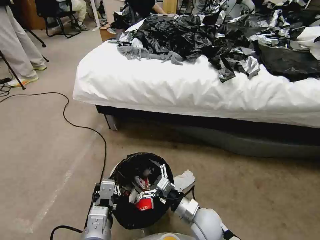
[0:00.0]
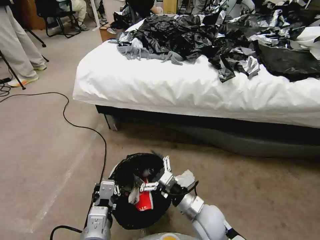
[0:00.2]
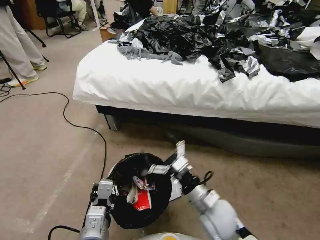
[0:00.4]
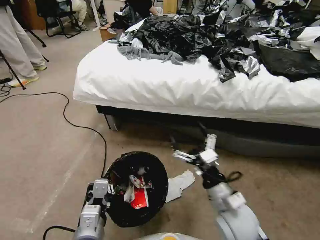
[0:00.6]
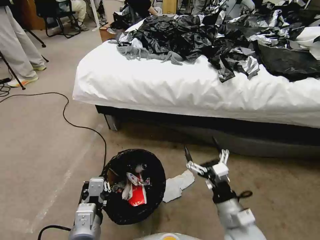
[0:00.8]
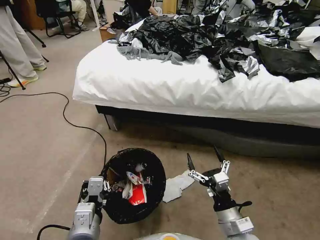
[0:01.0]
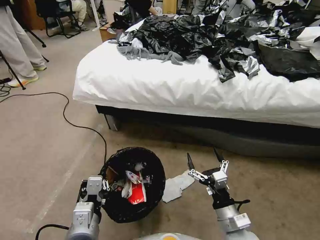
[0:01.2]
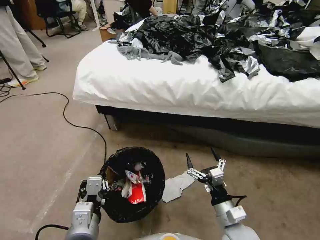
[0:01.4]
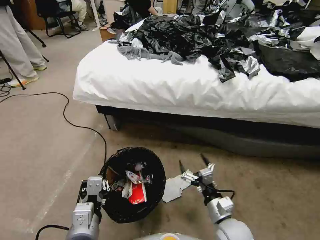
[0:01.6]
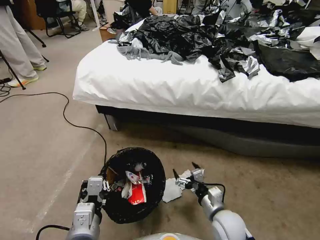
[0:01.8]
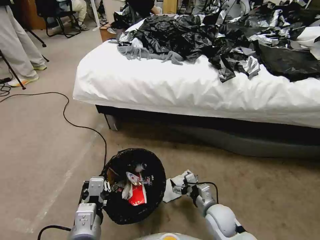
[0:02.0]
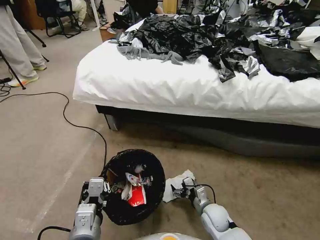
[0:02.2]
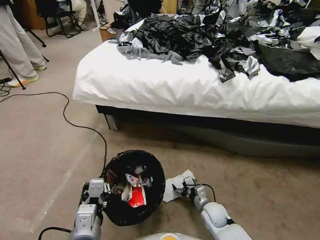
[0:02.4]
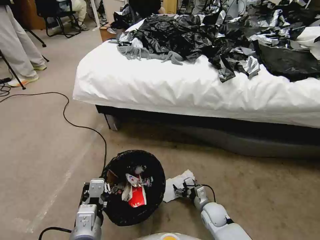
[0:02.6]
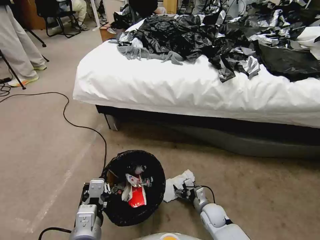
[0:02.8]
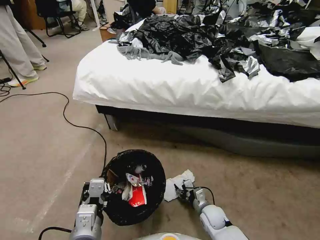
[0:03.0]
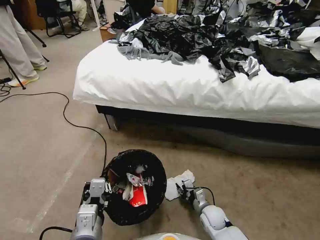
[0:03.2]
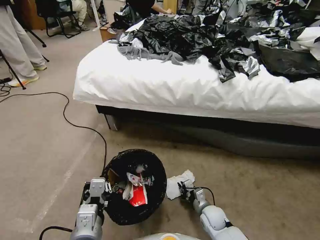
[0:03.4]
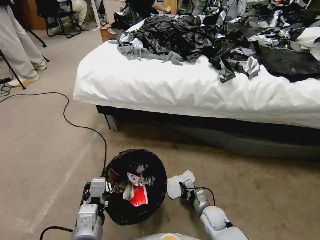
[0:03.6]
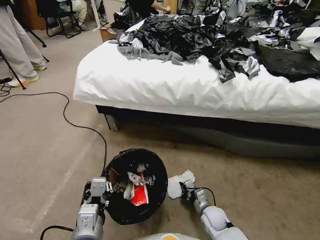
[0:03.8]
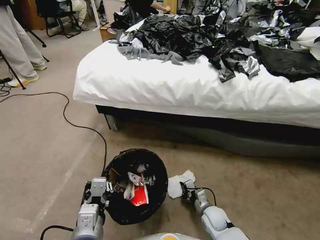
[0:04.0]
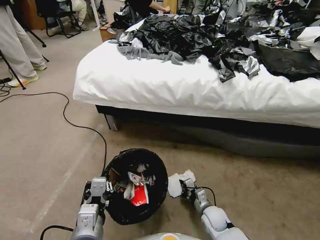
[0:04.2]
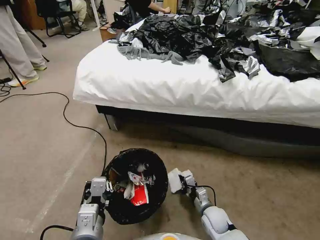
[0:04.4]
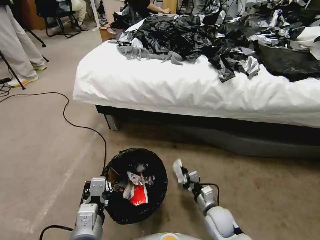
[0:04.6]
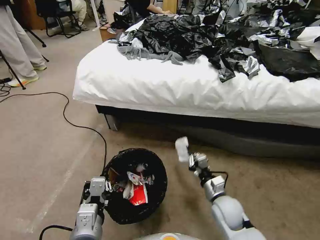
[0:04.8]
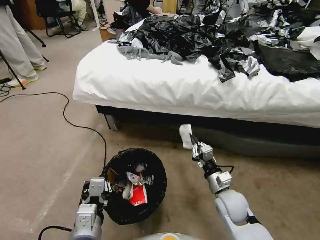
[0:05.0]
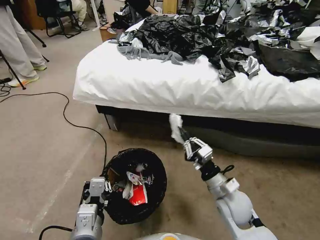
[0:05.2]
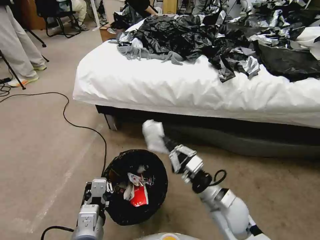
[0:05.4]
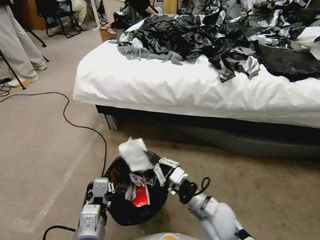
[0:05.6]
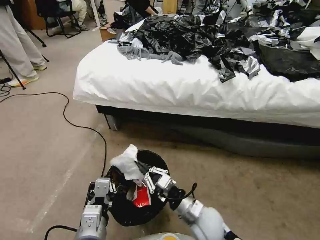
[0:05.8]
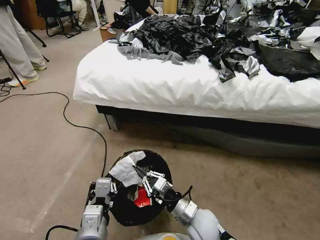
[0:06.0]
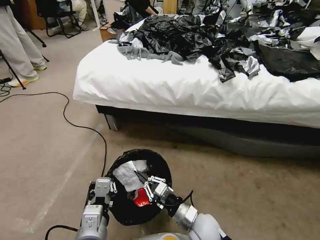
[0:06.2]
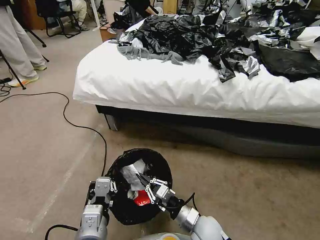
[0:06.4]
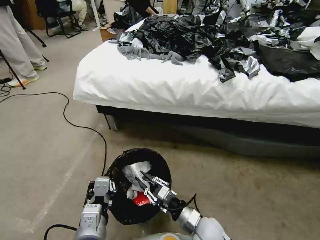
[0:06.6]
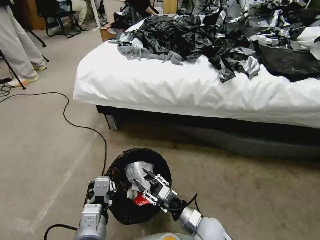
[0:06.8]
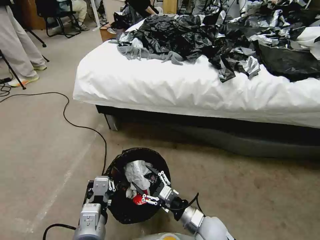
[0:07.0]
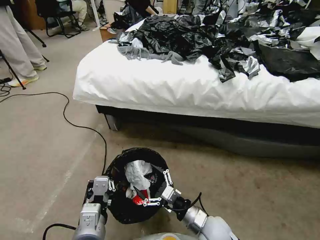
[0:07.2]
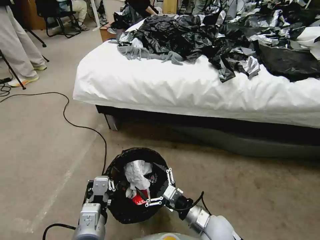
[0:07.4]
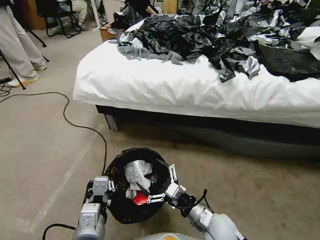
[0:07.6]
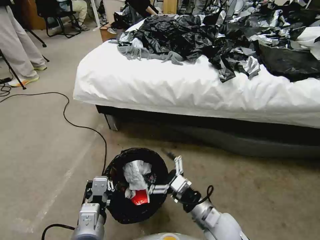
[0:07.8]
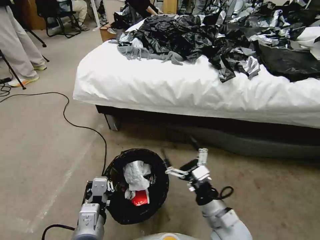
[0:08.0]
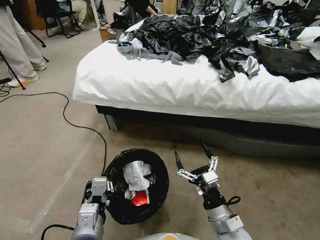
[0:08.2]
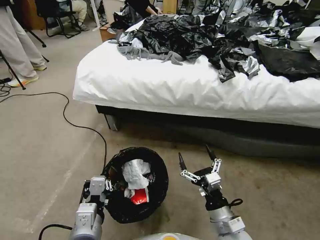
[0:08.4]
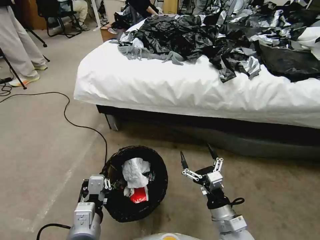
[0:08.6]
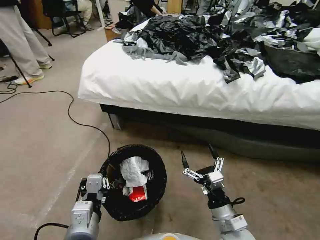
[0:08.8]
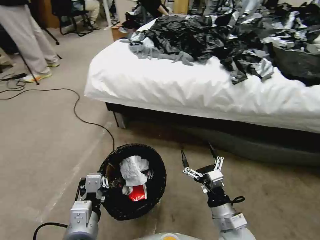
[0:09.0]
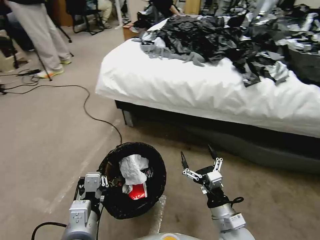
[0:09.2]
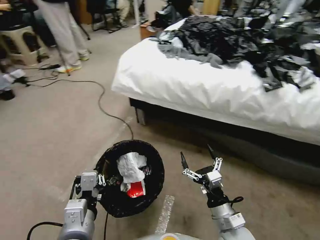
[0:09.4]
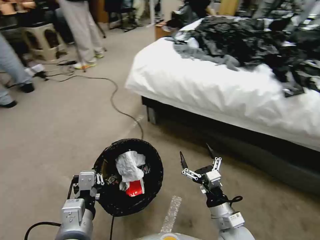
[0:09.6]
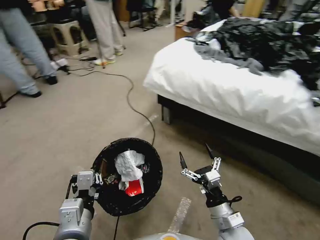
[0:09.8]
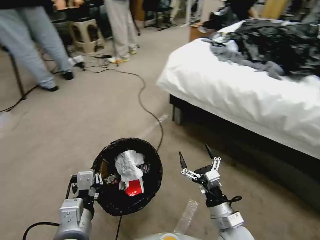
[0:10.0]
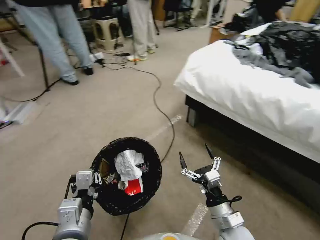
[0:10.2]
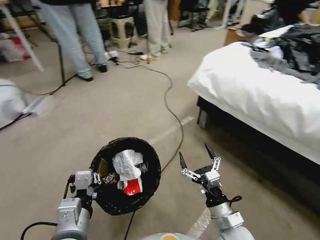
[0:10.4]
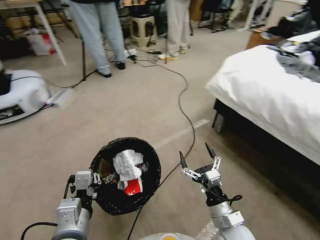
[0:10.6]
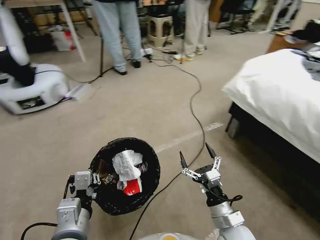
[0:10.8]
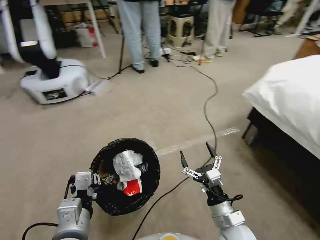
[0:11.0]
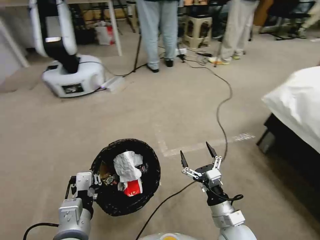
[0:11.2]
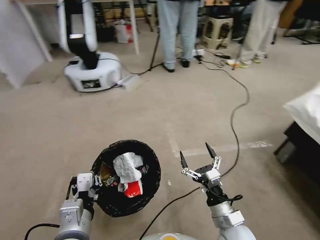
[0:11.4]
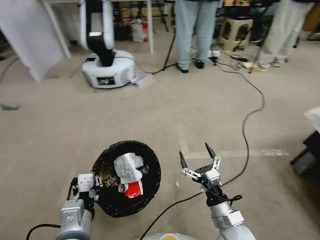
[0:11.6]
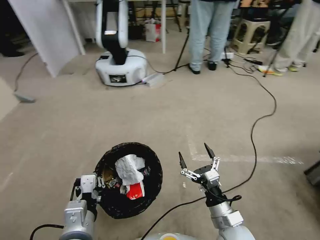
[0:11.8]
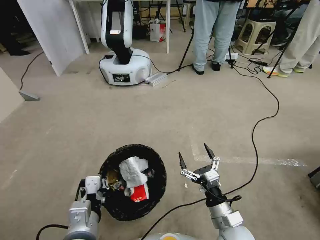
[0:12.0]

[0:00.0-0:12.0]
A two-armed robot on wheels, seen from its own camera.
Task of the whole recording: Pick up the trash bin, then pick up the garbage from the floor and place it into the trash bin.
0:00.0 to 0:01.6: The right gripper shifts some 5 cm to the right, and goes upward and returns, about 10 cm each way.
0:01.6 to 0:03.0: The right gripper goes some 15 cm downward and forward, and closes up.
0:03.0 to 0:04.4: The right gripper closes.
0:04.4 to 0:06.0: The right gripper is displaced upward and to the left by some 15 cm.
0:06.0 to 0:07.6: The right gripper opens its fingers.
0:07.6 to 0:09.0: The right gripper moves about 5 cm.

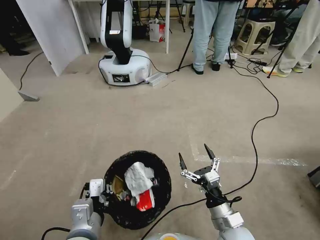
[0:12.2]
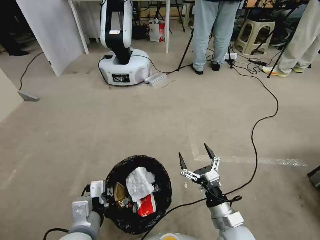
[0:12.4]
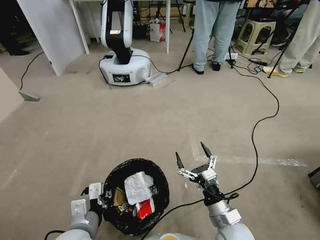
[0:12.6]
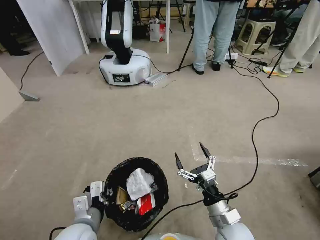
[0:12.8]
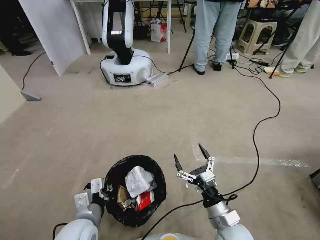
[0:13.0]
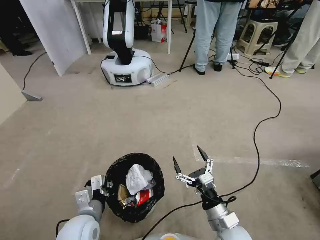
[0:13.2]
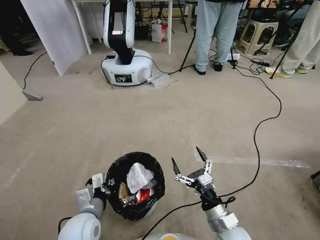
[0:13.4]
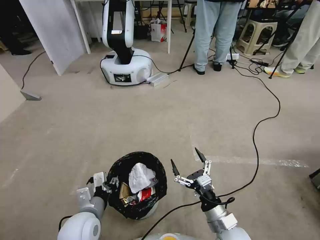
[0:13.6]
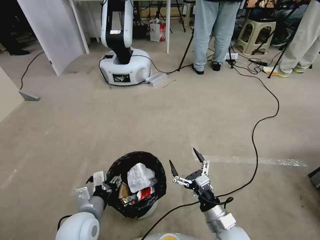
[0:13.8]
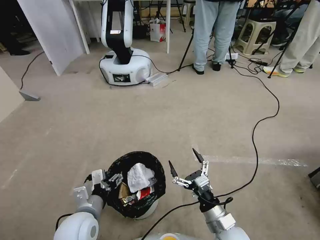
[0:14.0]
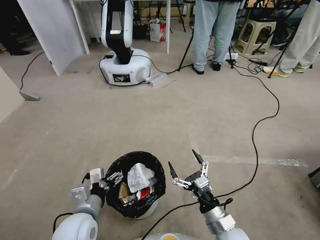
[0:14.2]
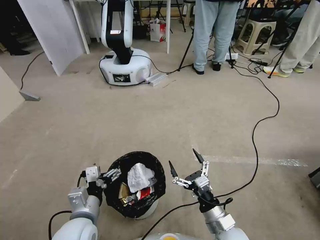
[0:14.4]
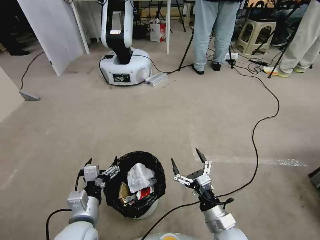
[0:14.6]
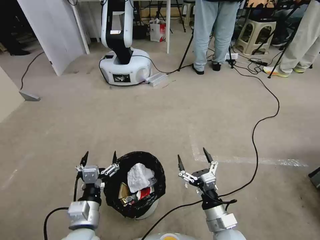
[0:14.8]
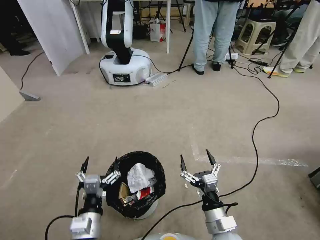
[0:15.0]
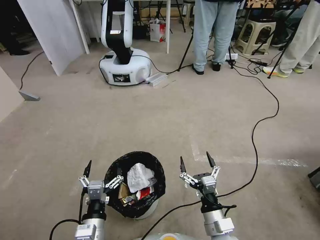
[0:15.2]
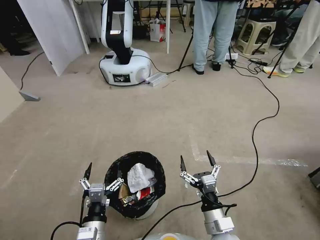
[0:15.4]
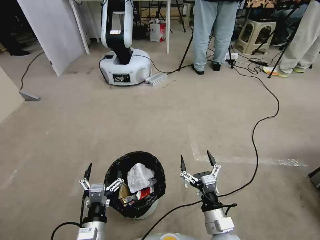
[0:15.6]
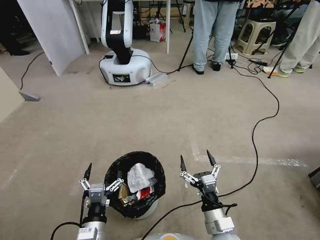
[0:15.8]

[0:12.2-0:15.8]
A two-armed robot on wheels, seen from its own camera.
Task of the whole recording: Pick up the trash bin, then pick up the garbage from the floor and place it into the trash bin.
0:12.2 to 0:14.0: The left gripper heads forward and downward, covering about 10 cm, and opens.
0:14.0 to 0:15.8: The left gripper heads backward, covering approximately 5 cm.

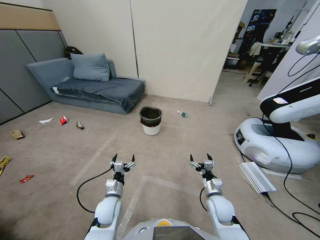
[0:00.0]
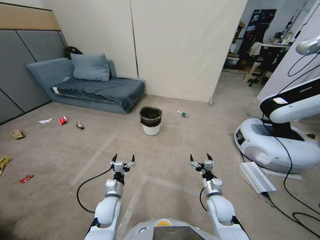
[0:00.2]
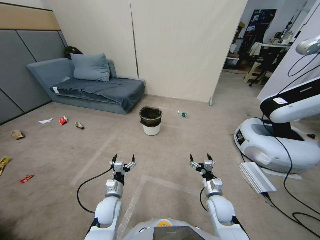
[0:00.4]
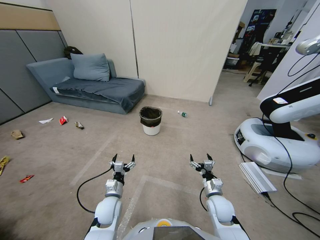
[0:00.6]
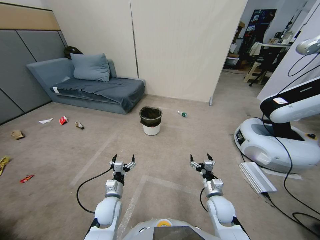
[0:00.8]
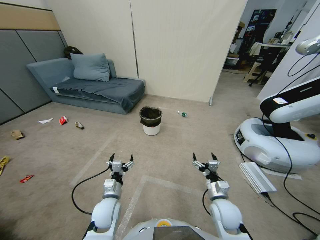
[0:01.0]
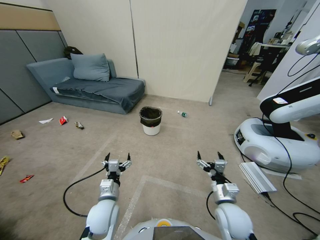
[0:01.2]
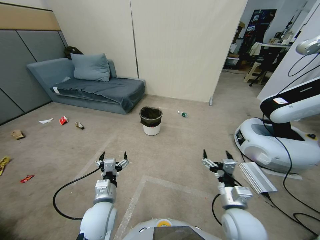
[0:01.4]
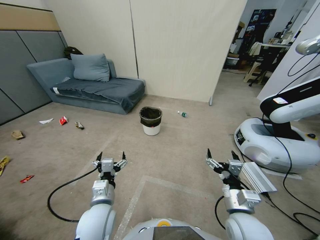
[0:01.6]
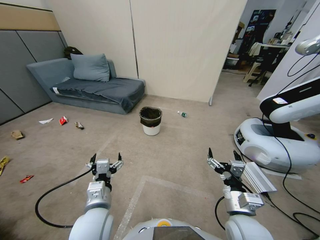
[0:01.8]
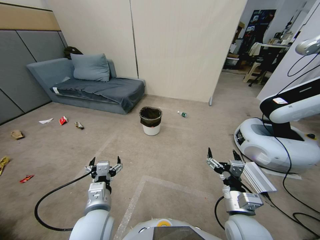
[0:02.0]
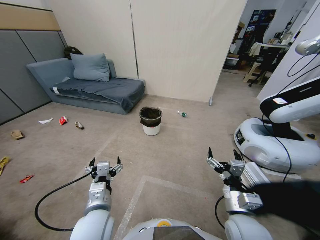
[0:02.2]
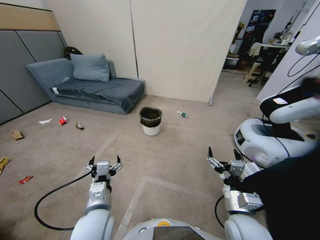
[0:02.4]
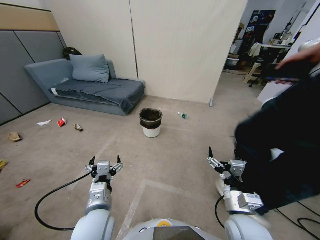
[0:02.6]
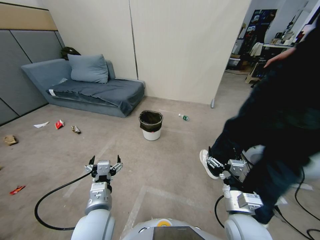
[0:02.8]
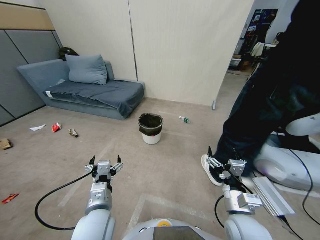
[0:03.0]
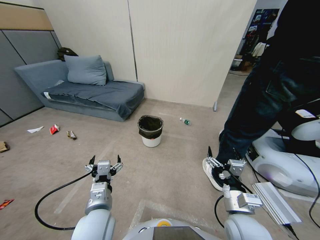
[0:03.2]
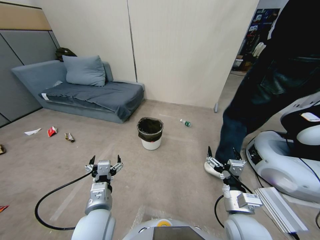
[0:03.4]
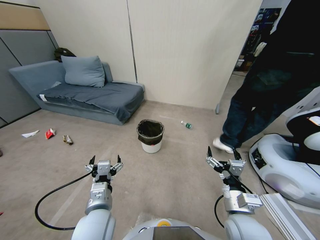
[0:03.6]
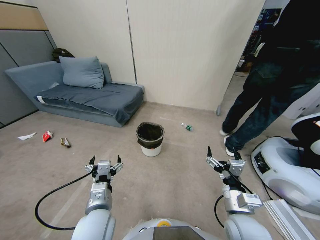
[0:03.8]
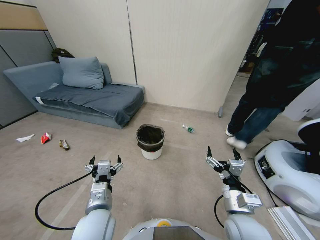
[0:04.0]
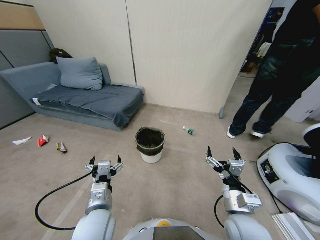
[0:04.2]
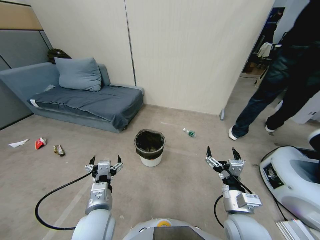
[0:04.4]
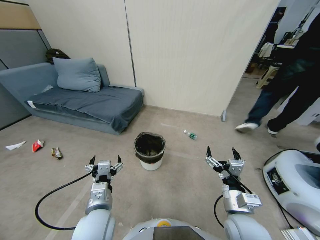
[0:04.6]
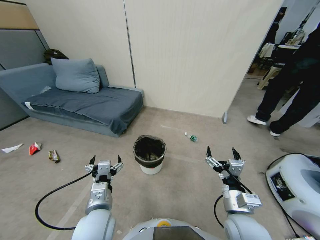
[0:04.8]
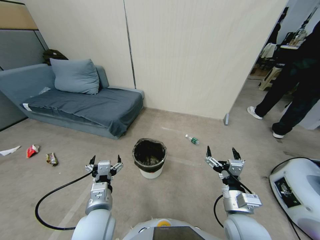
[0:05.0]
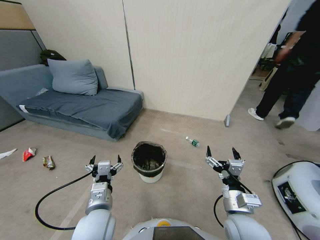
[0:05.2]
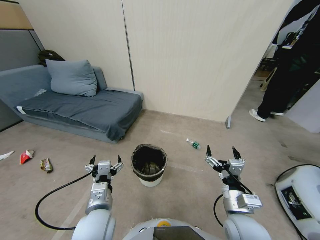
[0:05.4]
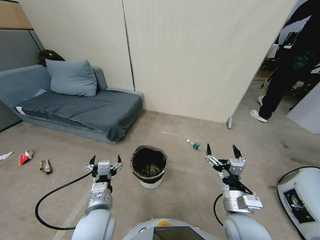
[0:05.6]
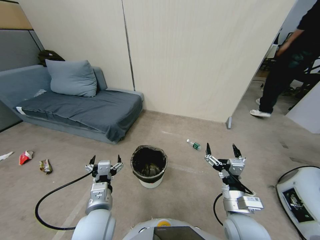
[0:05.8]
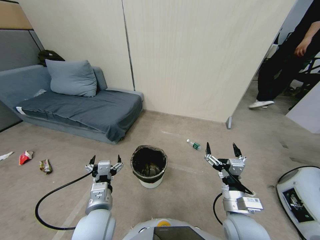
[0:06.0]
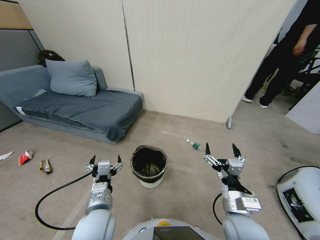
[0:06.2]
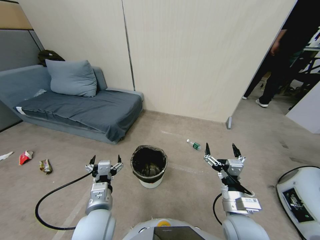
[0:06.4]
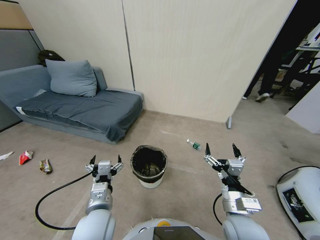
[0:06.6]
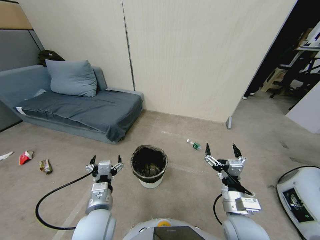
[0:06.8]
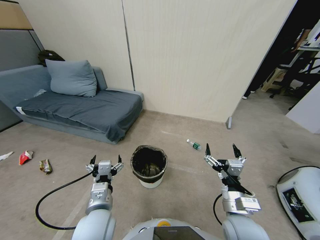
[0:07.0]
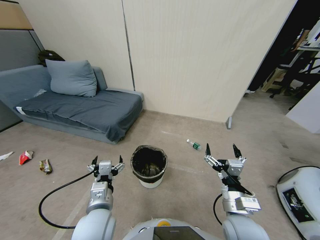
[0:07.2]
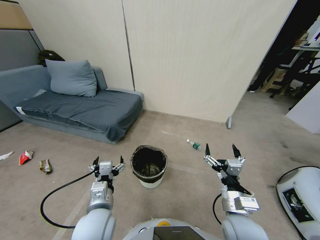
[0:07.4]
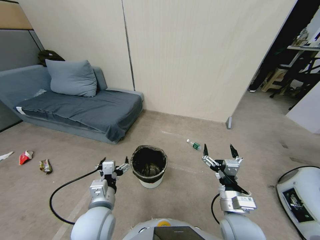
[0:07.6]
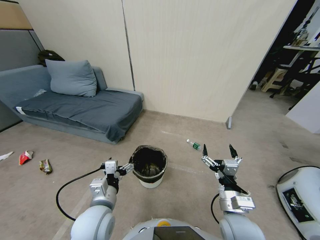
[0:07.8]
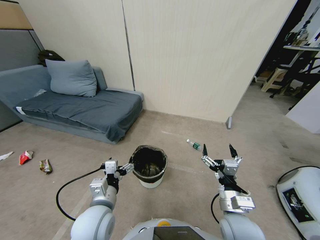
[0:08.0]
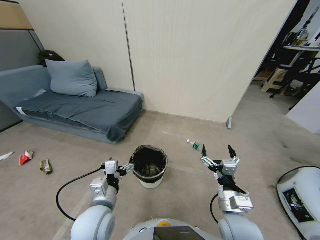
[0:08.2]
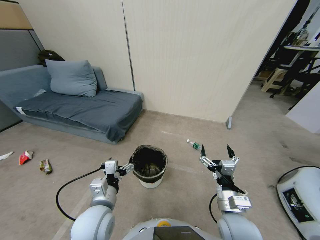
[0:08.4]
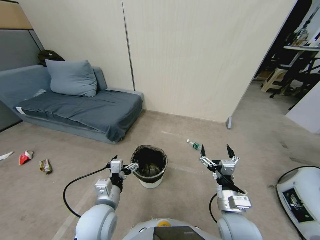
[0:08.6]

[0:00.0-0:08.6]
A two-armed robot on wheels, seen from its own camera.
Task of the whole recording: Pick up the trash bin, then pick up the garbage from the floor and place it into the trash bin.
0:01.4 to 0:02.8: The left gripper moves approximately 5 cm.
0:05.8 to 0:07.2: Both grippers stay about where they are.
0:07.2 to 0:08.6: The grippers move only a little.
